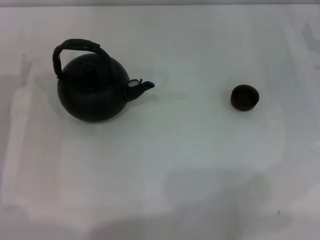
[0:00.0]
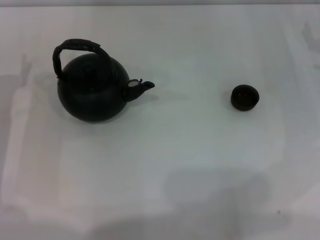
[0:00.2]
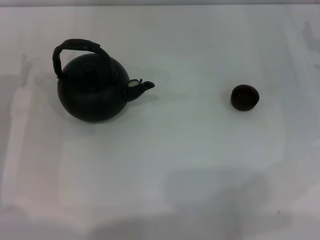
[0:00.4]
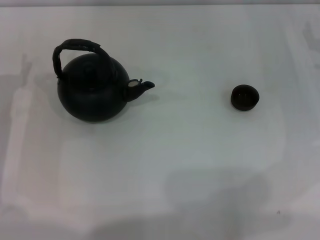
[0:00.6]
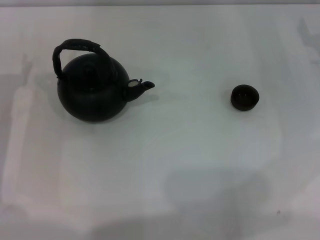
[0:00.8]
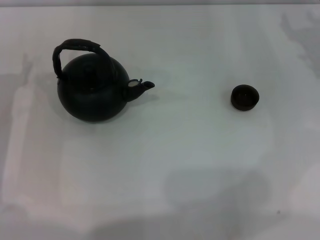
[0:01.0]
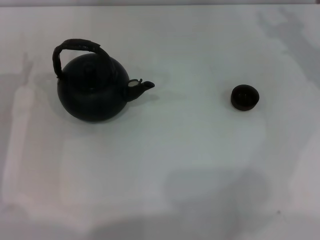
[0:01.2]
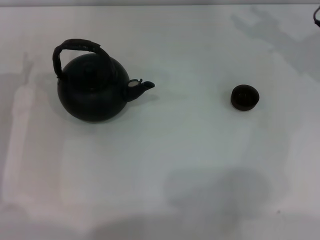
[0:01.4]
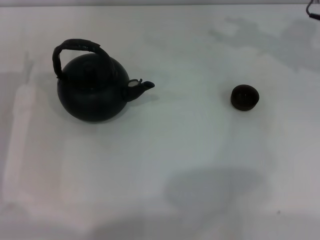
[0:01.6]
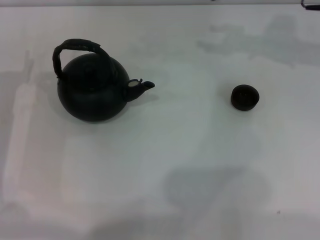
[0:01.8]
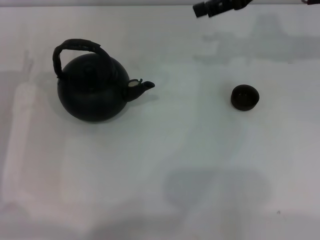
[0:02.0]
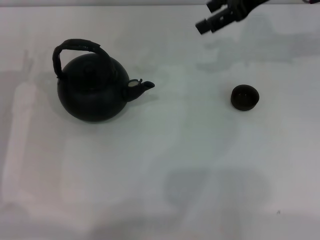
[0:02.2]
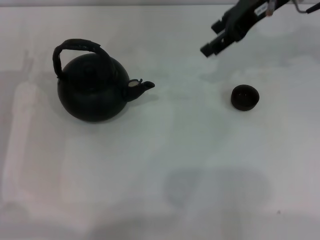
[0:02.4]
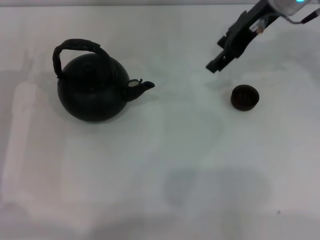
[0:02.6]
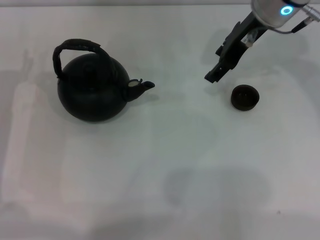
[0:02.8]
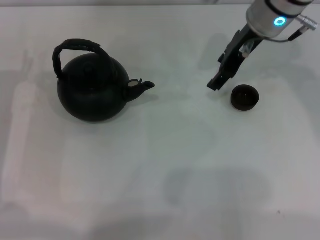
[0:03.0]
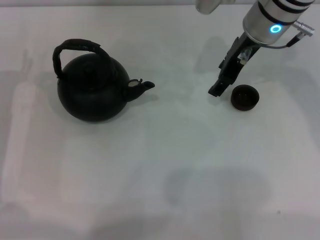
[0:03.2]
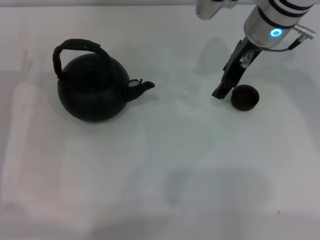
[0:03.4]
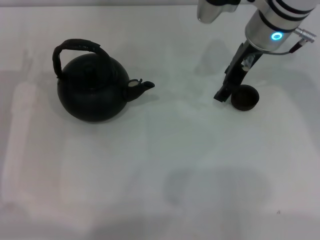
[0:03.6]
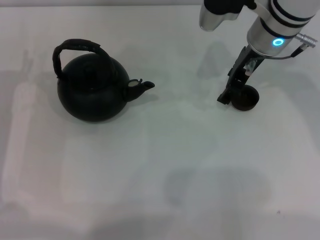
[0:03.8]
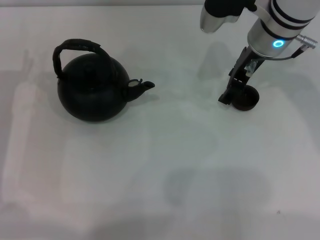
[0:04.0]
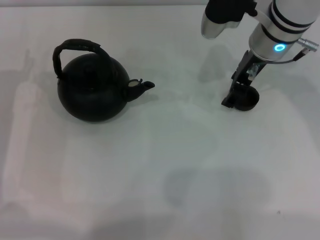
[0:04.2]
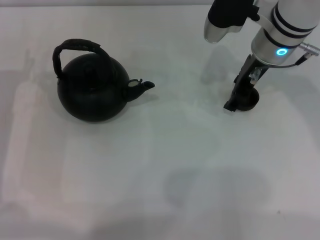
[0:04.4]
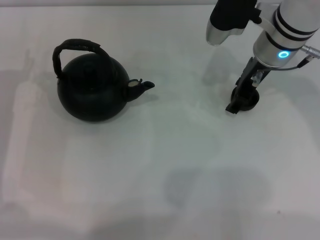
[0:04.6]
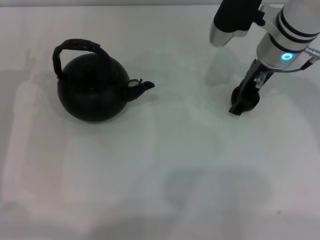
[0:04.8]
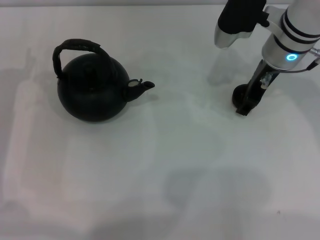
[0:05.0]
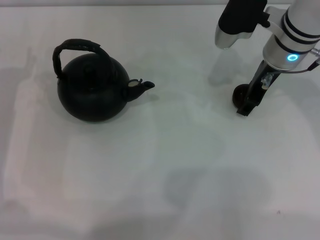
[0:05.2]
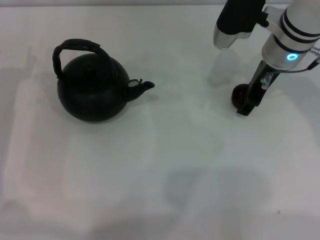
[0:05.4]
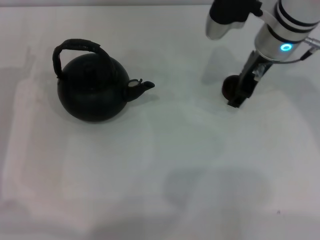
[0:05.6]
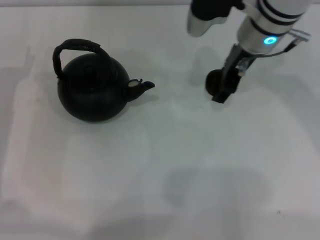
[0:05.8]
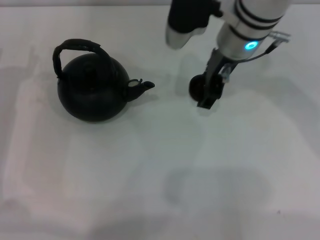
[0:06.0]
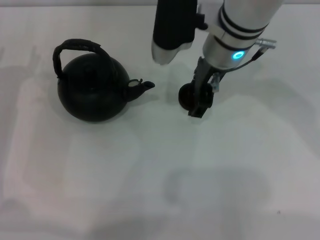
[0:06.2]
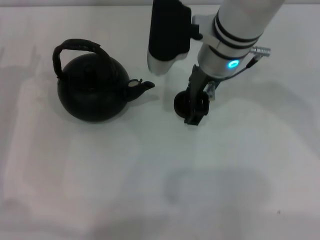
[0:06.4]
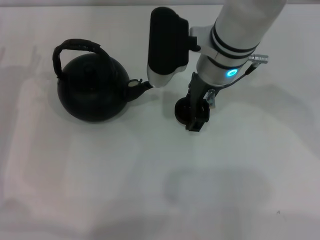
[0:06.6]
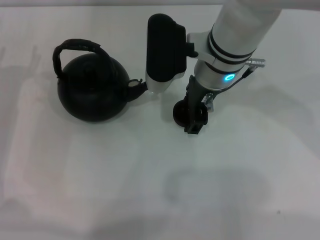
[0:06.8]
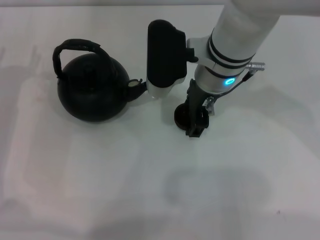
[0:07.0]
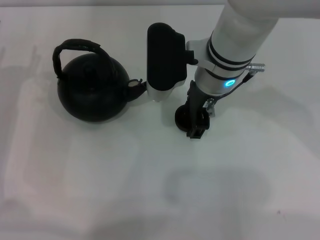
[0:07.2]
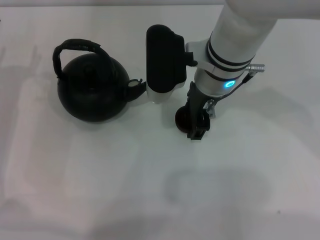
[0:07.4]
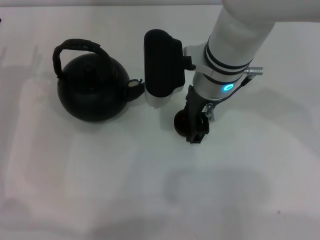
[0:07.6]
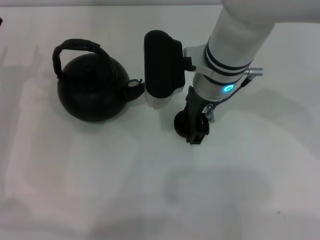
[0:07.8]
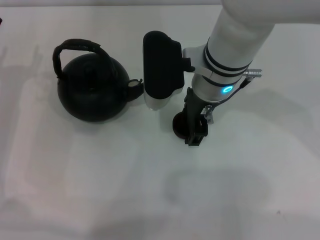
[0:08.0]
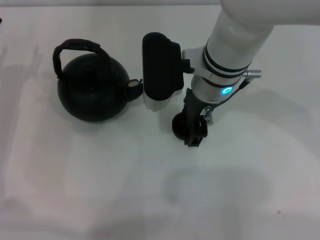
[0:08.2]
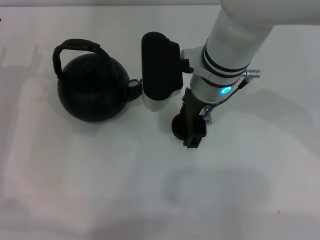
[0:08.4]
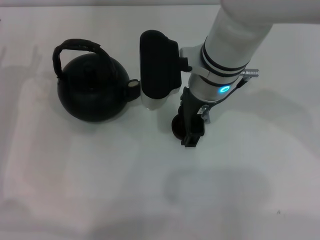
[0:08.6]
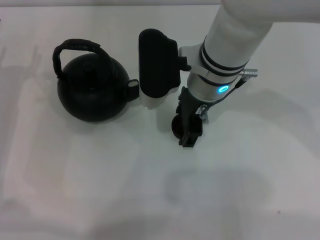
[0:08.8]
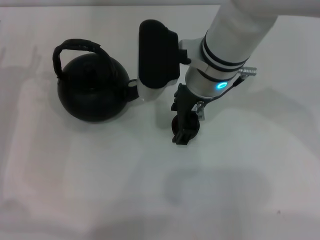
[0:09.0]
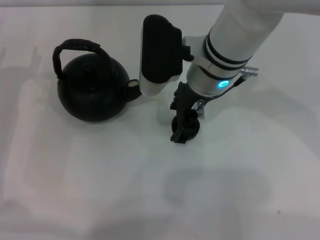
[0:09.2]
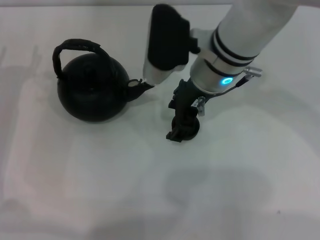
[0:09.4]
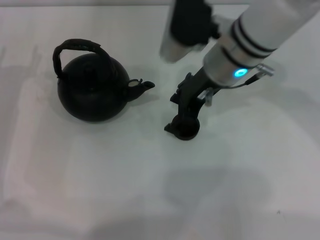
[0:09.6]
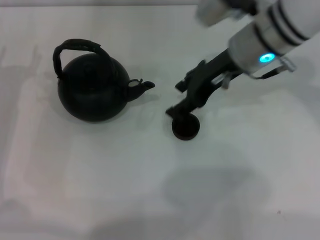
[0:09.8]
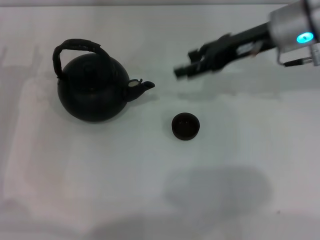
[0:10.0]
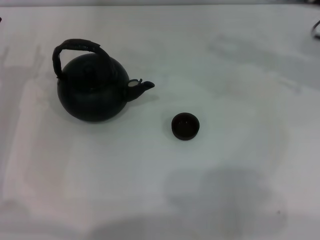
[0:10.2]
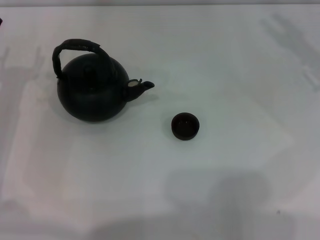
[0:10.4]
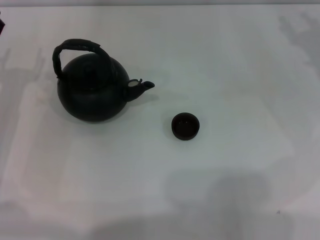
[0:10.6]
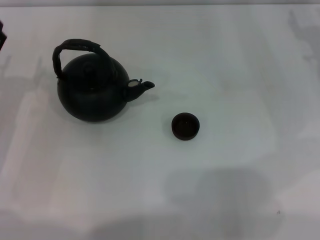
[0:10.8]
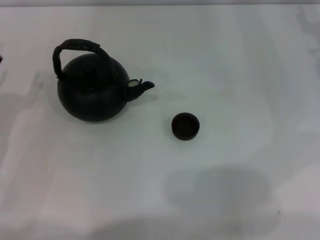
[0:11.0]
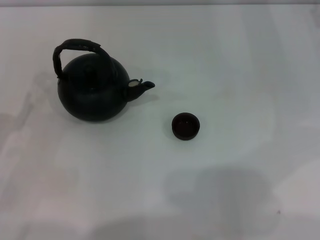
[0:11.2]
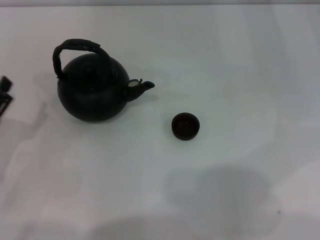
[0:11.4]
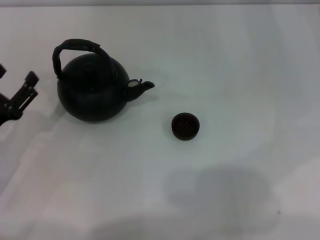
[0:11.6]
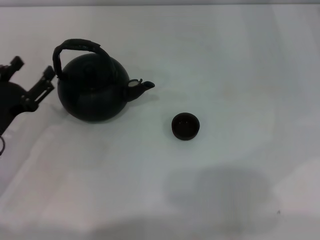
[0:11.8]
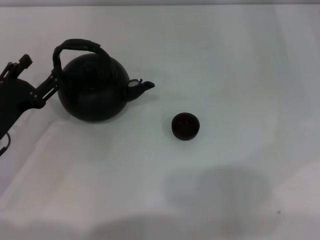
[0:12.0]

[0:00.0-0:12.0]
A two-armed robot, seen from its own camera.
Task of the whole recording: Grasp the handle of the teapot with one hand and pour tea into the teacup.
Step, 0:00.0 to 0:06.0: Pick up the teacup with the right gripper.
Step, 0:06.2 to 0:09.2: Place the teacup in the center of view with the right gripper.
0:01.6 to 0:03.0: The right gripper goes about 10 cm to the left.
0:03.0 to 0:04.4: There are only small adjustments of the grippers.
0:04.4 to 0:06.0: The right gripper shifts roughly 5 cm to the left.
0:06.0 to 0:07.6: The right gripper shifts by some 5 cm.
0:07.6 to 0:09.0: The grippers stay close to where they were, moving slightly.
0:09.0 to 0:10.4: The right gripper heads to the right, covering about 25 cm.

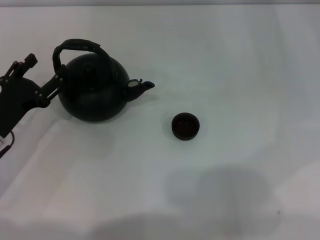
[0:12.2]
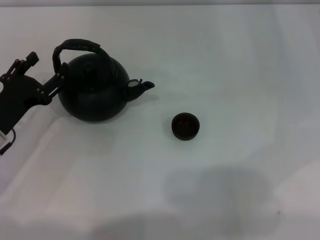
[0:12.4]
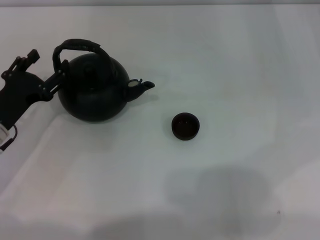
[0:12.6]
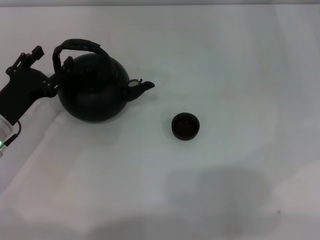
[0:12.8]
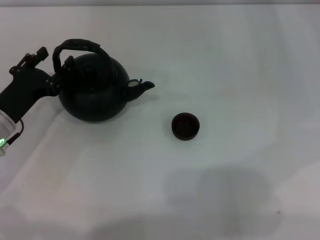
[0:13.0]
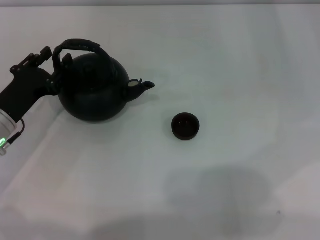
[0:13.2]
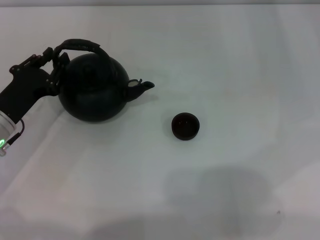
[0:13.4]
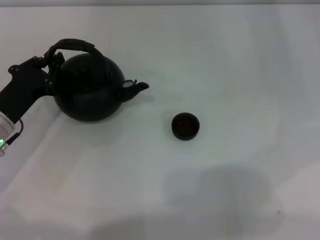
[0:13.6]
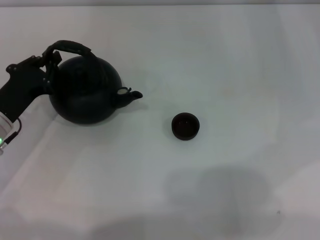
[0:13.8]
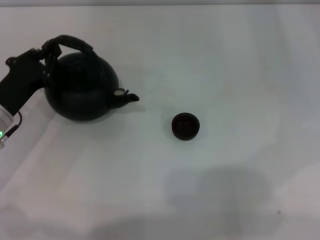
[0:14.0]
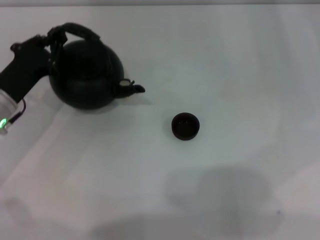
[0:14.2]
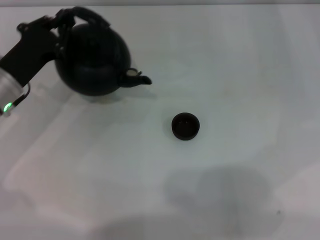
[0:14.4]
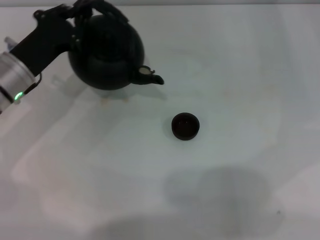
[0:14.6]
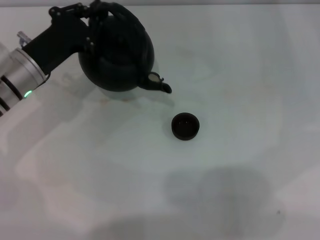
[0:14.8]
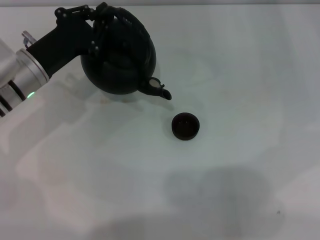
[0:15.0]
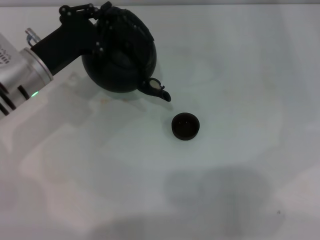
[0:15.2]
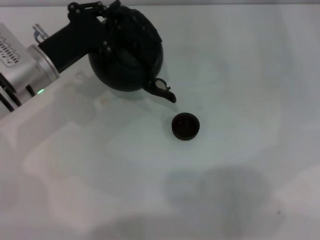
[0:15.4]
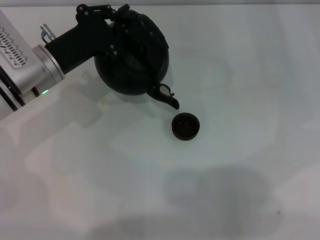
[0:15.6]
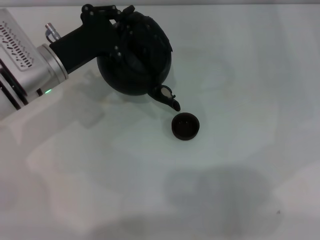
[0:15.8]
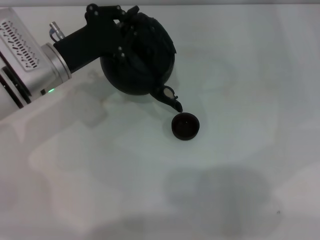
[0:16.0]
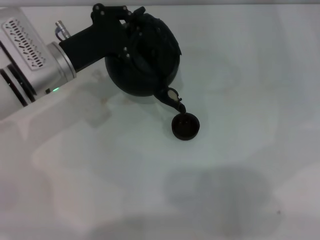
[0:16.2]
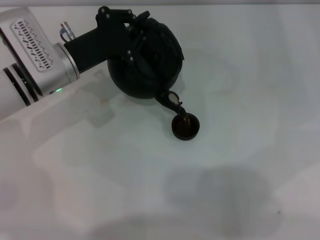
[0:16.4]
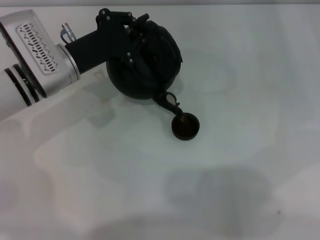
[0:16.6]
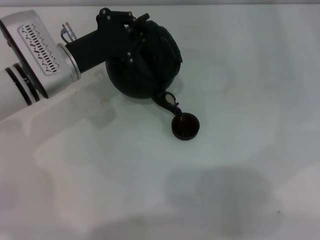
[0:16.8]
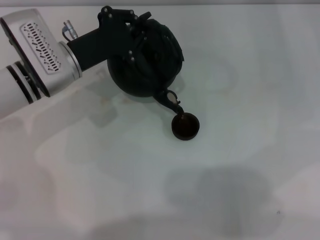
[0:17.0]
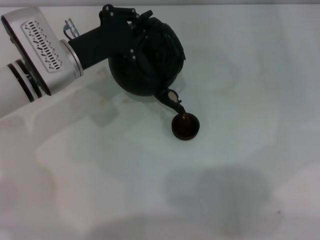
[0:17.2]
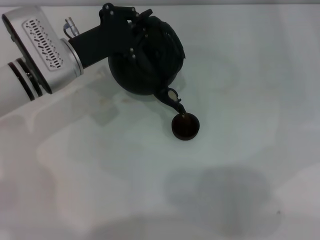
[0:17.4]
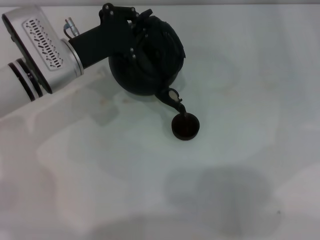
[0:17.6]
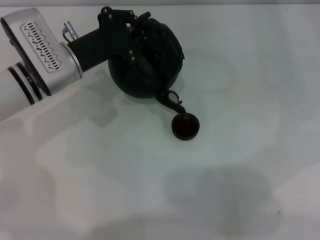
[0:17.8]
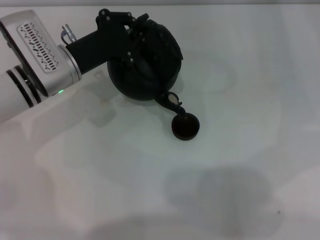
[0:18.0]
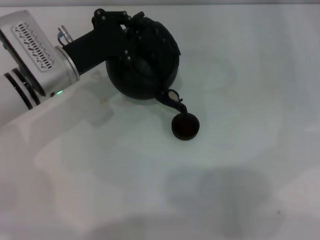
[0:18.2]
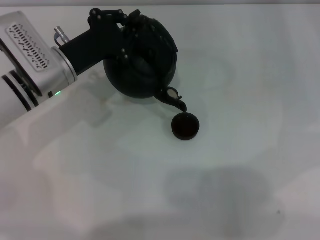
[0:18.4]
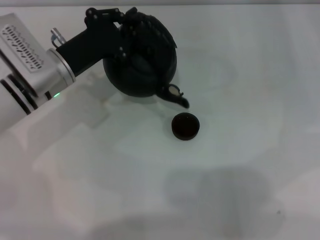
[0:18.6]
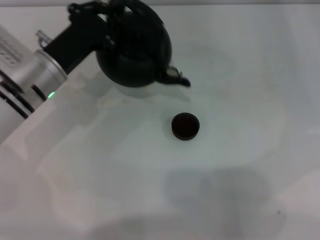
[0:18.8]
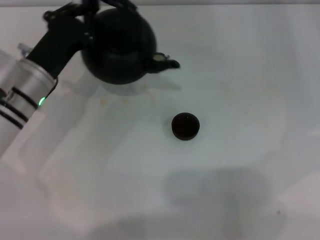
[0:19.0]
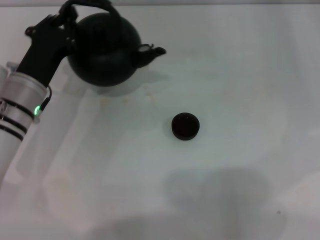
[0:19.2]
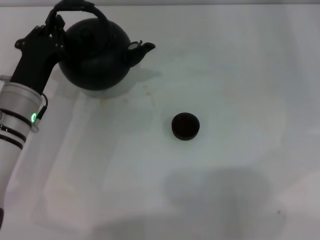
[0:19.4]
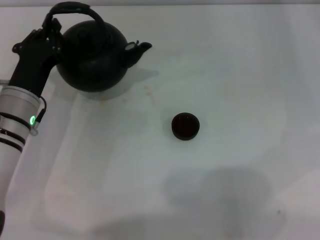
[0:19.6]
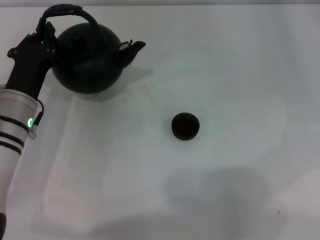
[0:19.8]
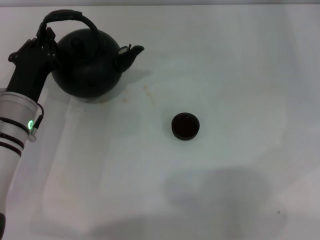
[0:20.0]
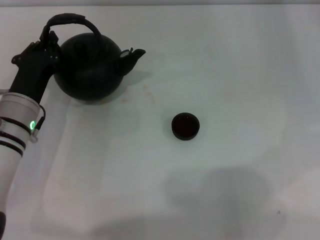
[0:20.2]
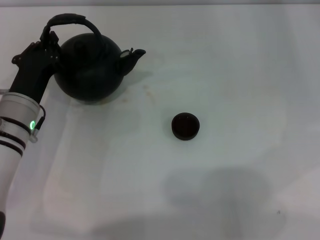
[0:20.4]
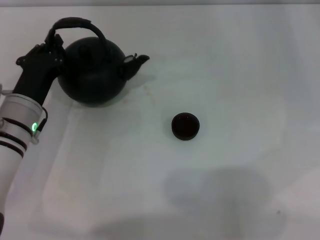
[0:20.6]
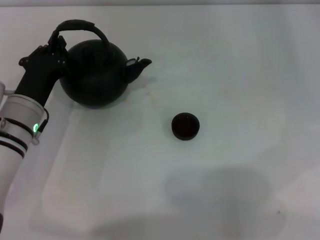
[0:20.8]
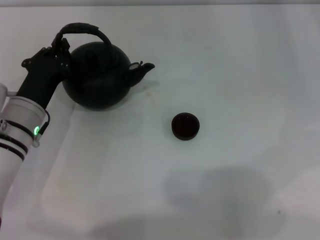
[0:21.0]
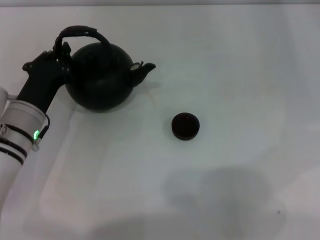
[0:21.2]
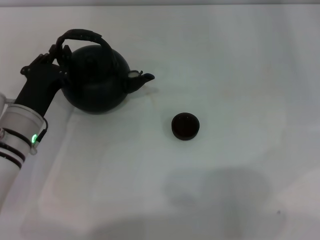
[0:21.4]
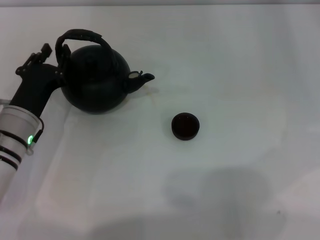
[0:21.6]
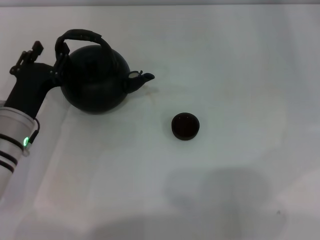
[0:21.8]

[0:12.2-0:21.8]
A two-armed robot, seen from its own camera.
Task of the whole recording: Grasp the handle of the teapot with one hand and pour tea into the teacup.
Step, 0:12.2 to 0:14.2: Pick up the teapot with the left gripper.
Step, 0:14.4 to 0:18.6: Pour tea into the teacup with the left gripper.
0:12.2 to 0:13.8: The left gripper closes.
0:13.8 to 0:15.4: The left gripper is displaced forward, to the right and upward by some 10 cm.
0:15.4 to 0:18.6: The grippers move only a little.
0:18.6 to 0:20.2: The left gripper travels backward by about 5 cm.
0:20.2 to 0:21.8: The left gripper opens its fingers.

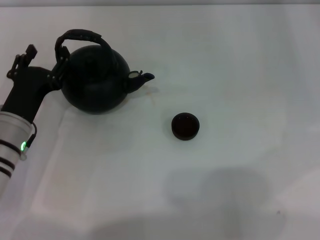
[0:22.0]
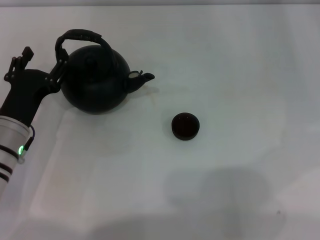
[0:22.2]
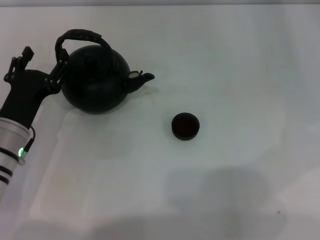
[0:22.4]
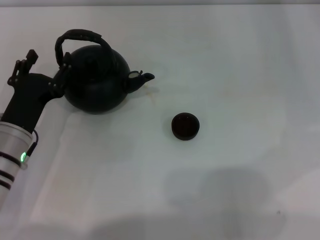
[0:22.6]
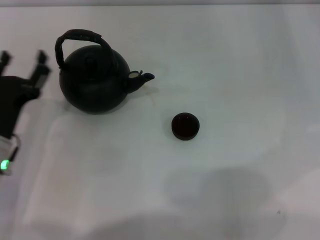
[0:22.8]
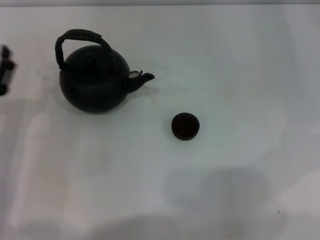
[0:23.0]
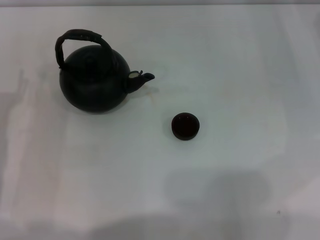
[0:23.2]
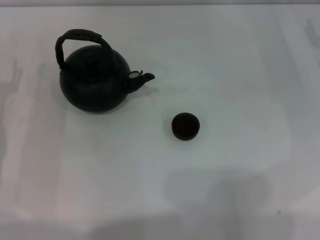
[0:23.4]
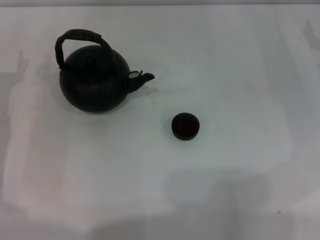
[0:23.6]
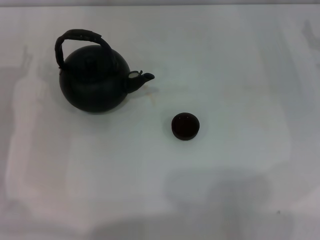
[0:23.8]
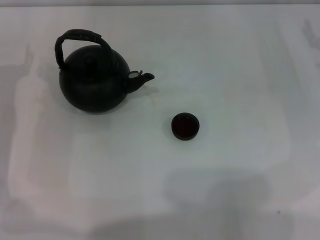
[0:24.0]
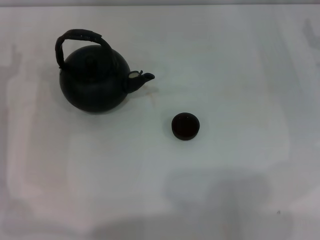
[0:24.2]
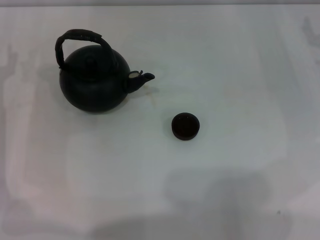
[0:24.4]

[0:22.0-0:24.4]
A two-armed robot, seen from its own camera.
Task of the whole recording: Grasp the handle of the teapot with one hand and pour tea into the teacup.
0:22.0 to 0:23.2: The left gripper travels to the left by approximately 5 cm.